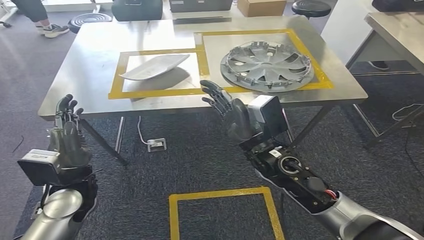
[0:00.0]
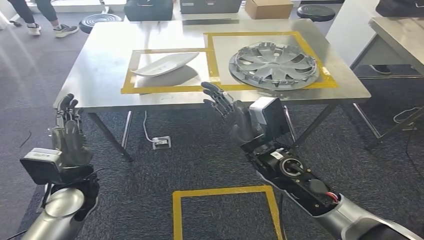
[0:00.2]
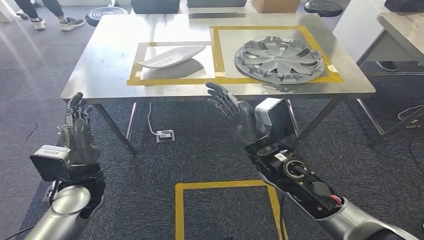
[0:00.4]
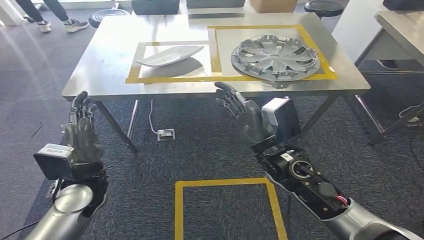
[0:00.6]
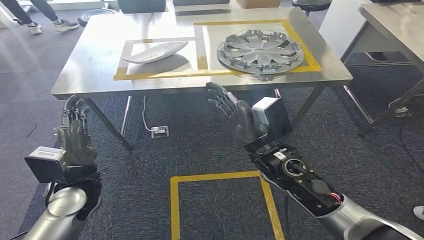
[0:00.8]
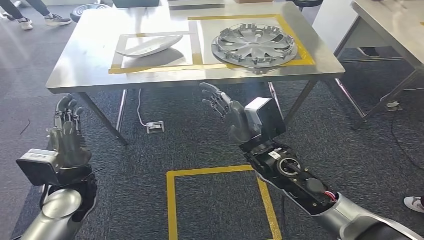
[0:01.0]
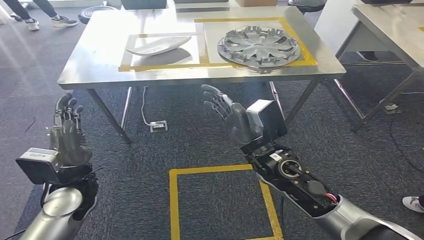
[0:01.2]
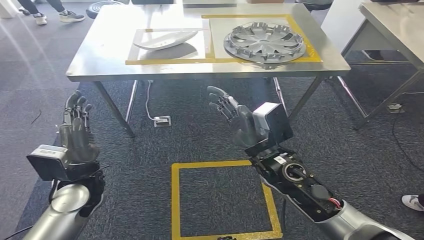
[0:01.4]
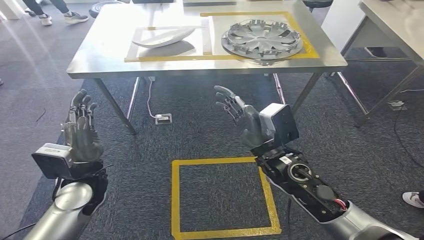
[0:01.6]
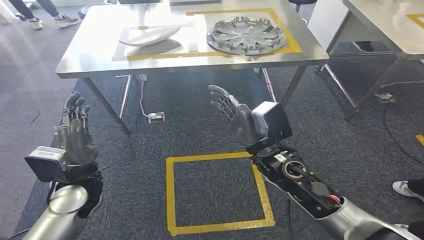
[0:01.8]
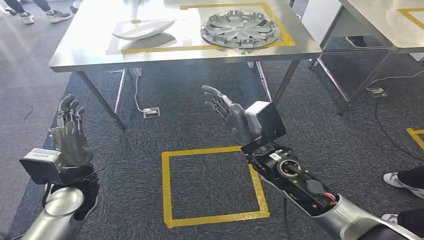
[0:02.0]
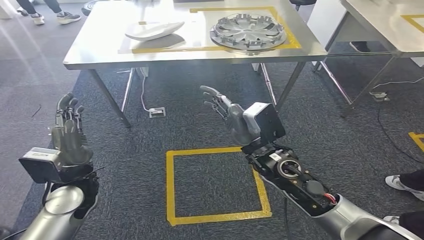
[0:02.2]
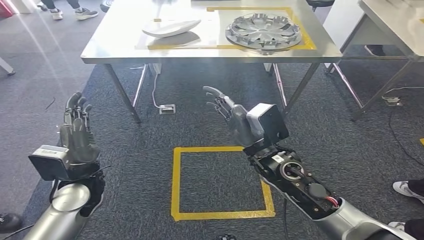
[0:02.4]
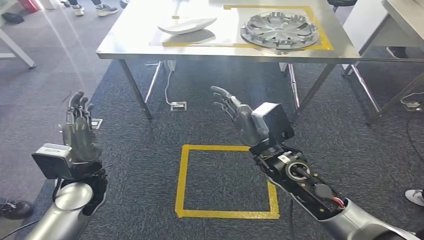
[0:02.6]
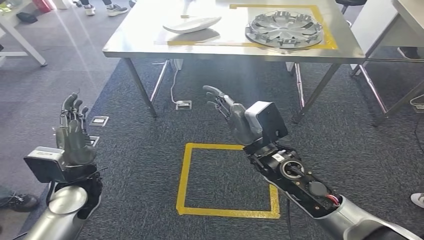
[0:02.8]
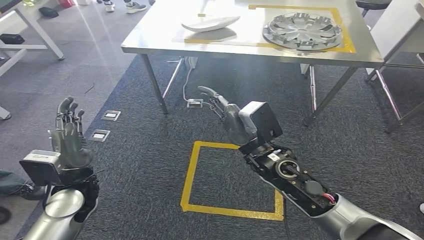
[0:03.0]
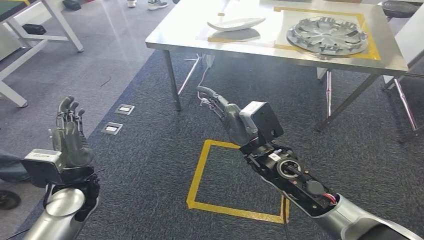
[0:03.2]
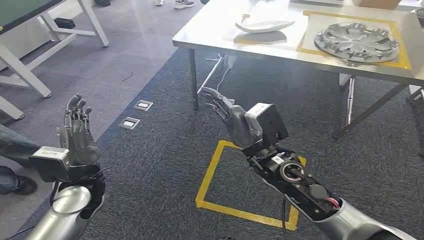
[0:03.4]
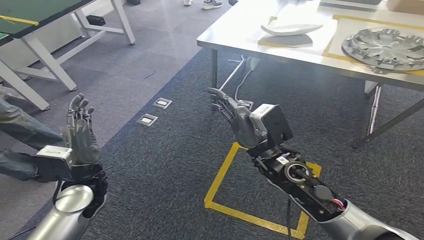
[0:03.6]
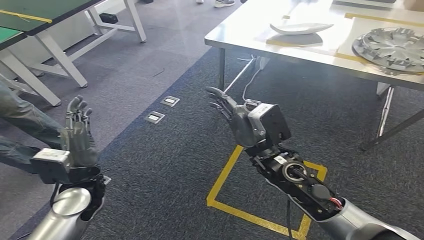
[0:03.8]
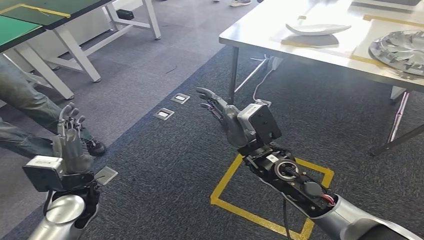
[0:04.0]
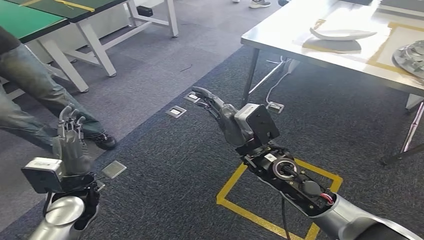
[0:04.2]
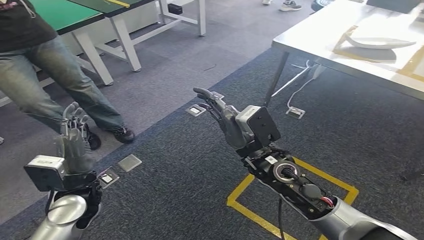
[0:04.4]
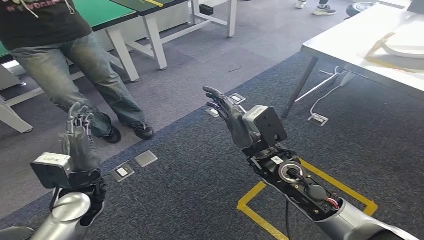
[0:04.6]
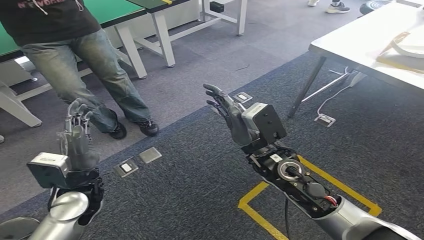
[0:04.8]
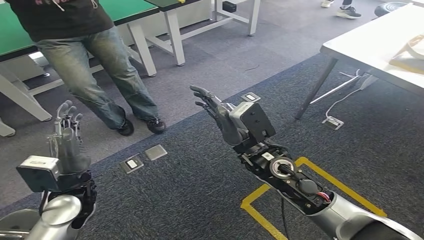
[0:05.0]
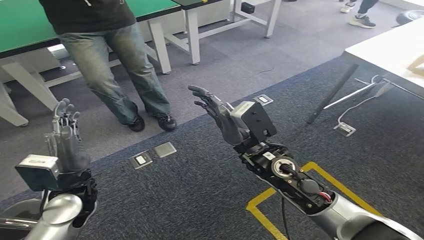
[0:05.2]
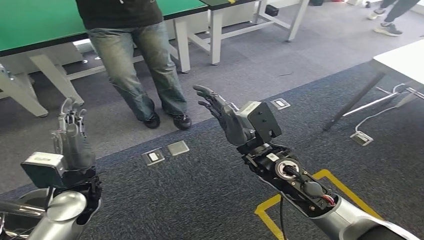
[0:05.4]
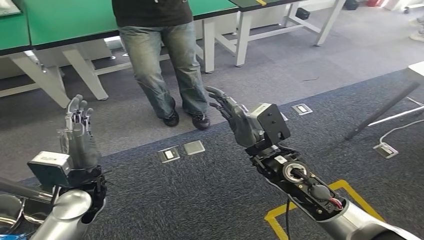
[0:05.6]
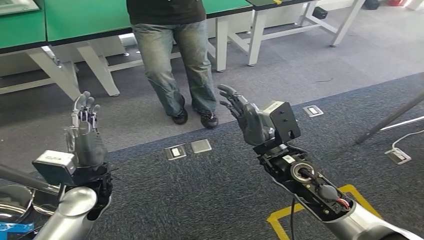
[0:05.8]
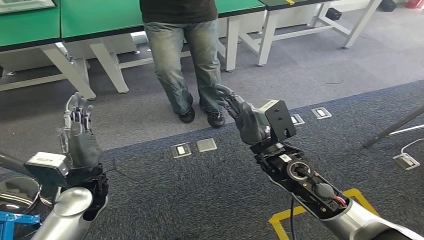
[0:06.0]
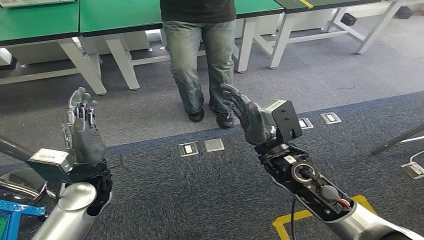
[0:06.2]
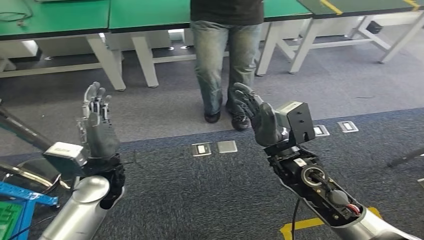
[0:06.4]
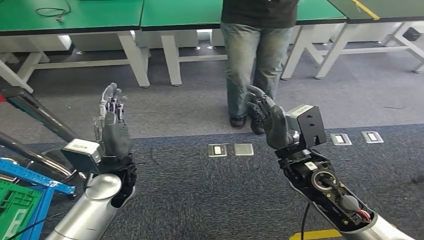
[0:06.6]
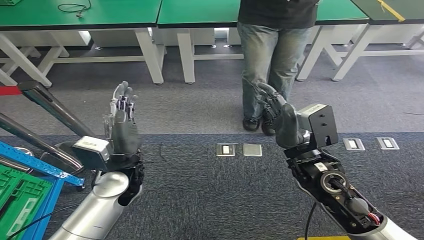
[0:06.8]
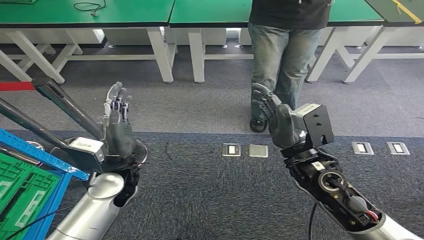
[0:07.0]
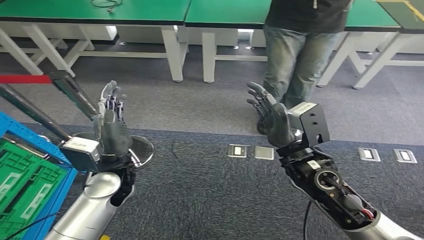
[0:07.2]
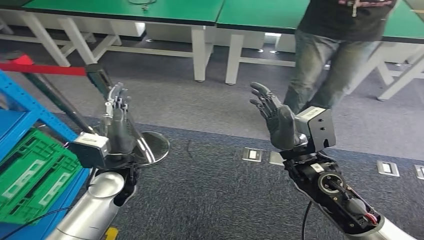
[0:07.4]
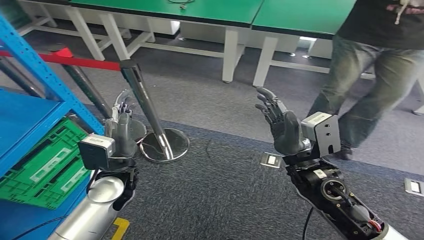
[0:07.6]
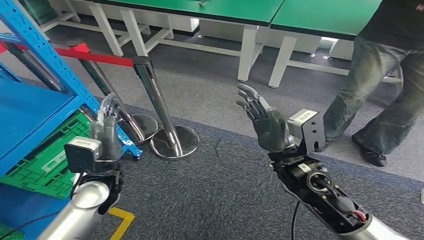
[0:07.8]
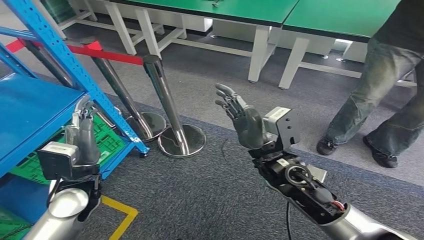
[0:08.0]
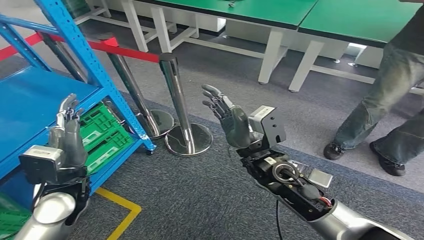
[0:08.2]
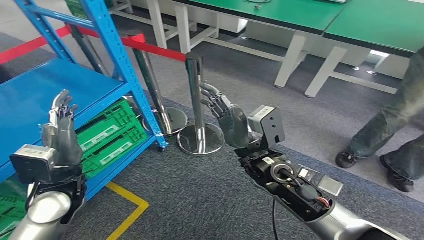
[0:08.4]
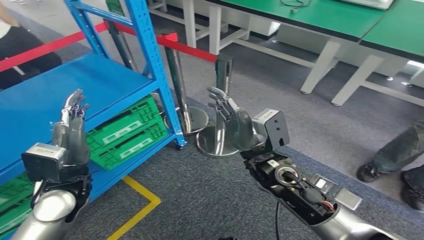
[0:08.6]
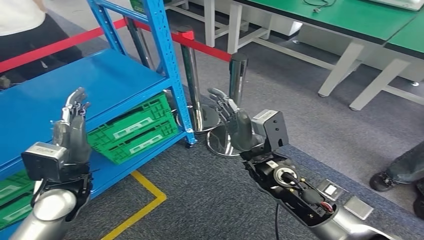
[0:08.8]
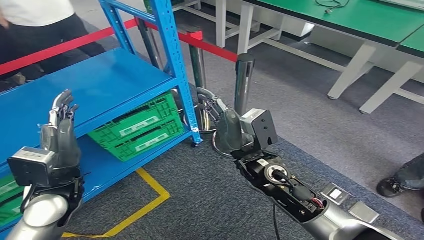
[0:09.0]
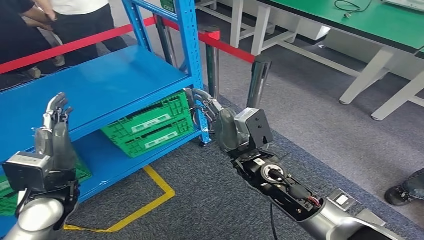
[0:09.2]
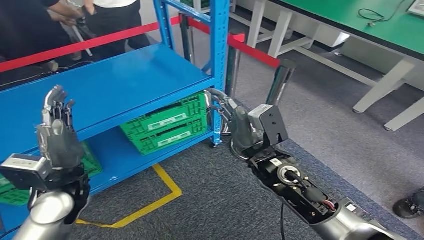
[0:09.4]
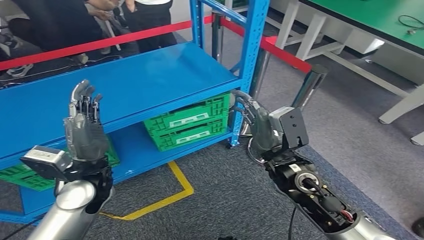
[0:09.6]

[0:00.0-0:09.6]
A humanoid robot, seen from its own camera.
Step, 0:00.0 to 0:09.6: Move to the initial position of the workbench.
